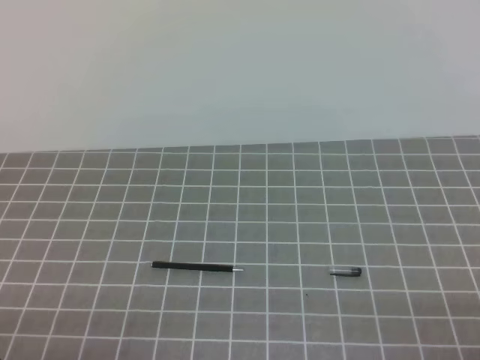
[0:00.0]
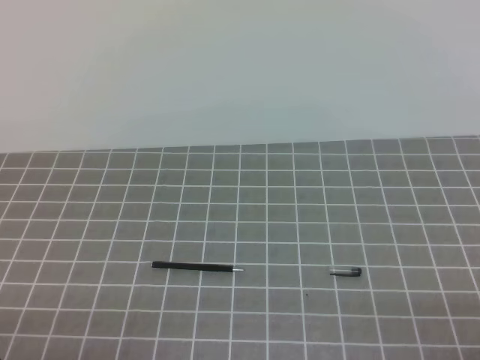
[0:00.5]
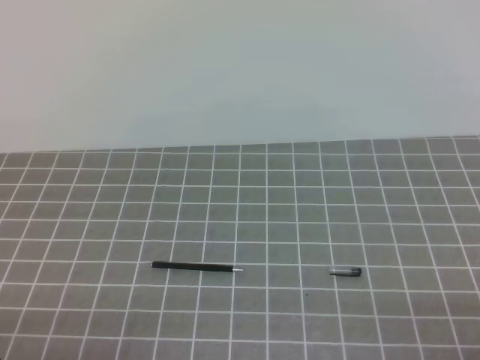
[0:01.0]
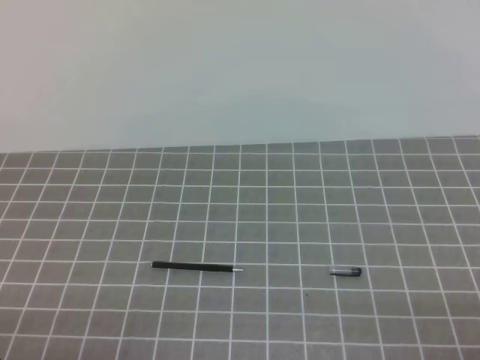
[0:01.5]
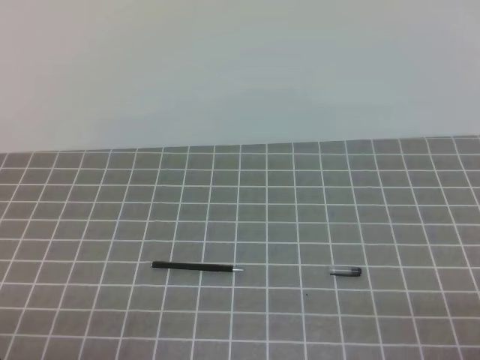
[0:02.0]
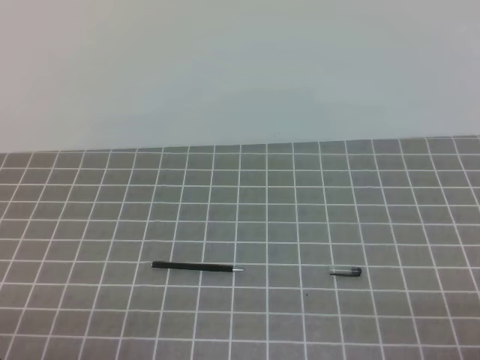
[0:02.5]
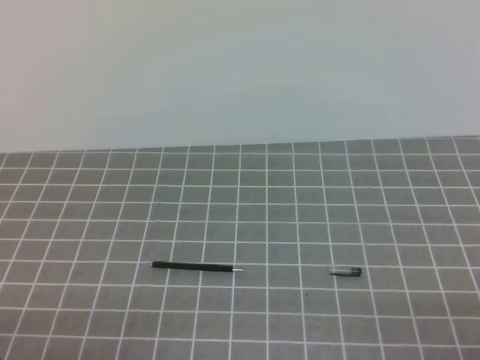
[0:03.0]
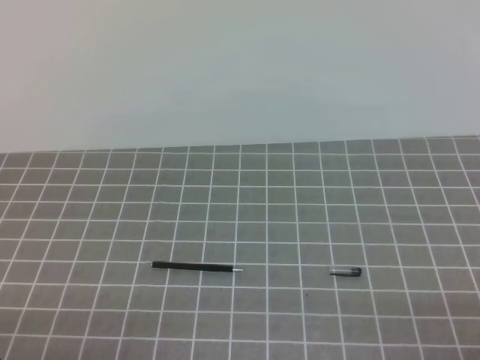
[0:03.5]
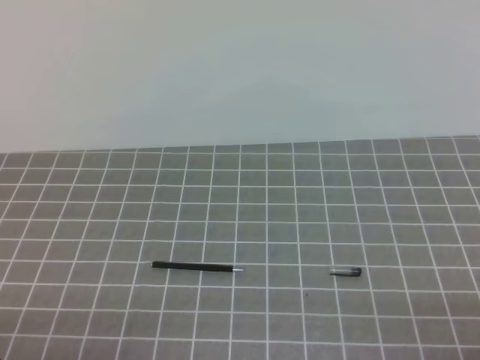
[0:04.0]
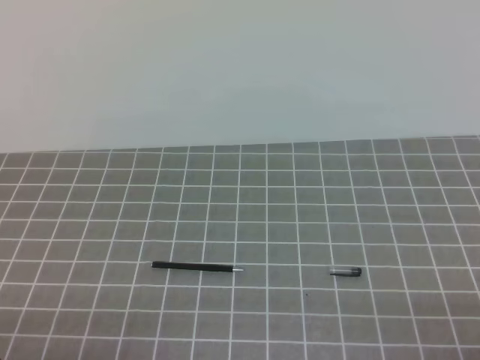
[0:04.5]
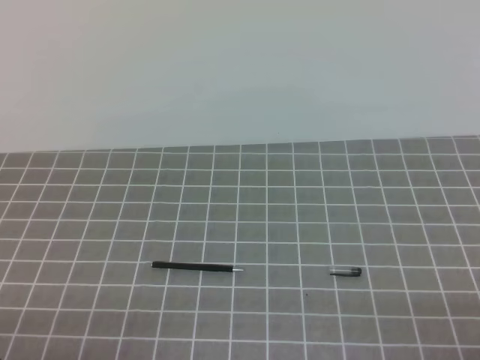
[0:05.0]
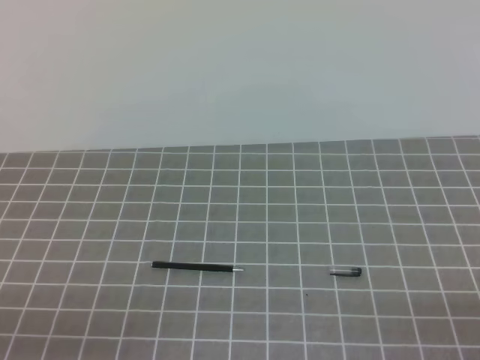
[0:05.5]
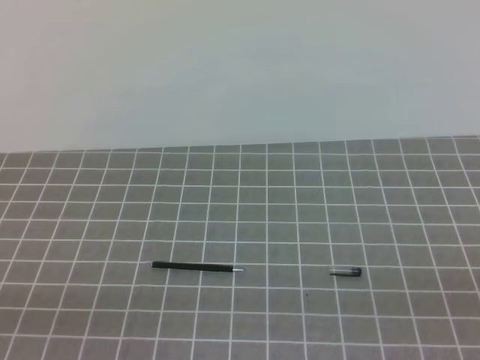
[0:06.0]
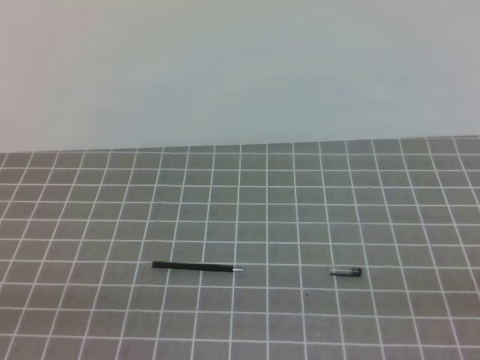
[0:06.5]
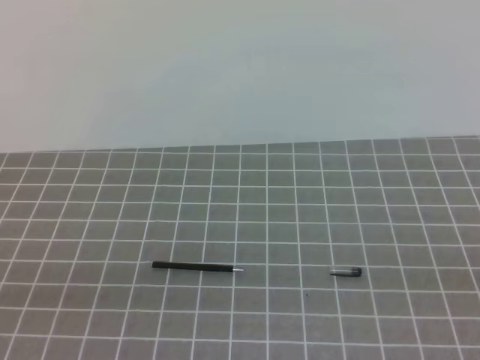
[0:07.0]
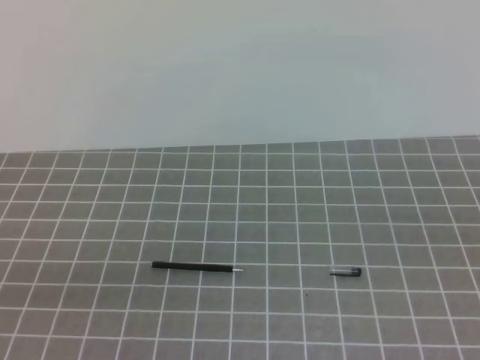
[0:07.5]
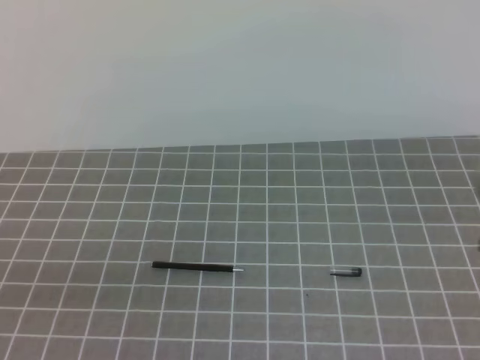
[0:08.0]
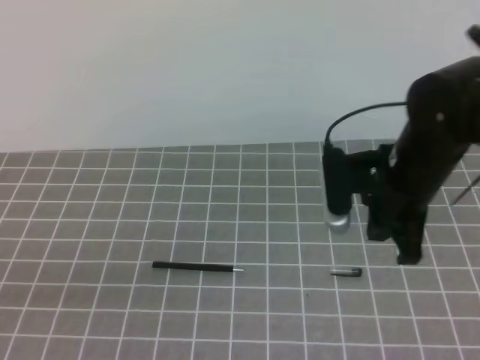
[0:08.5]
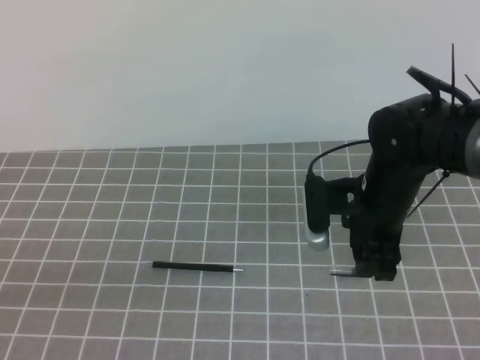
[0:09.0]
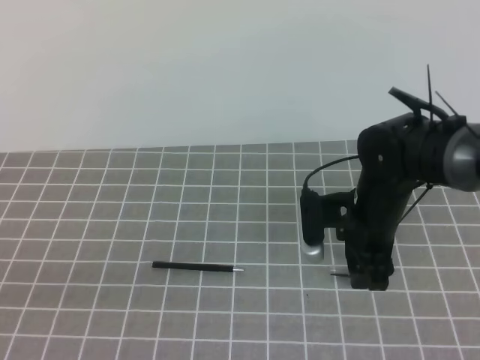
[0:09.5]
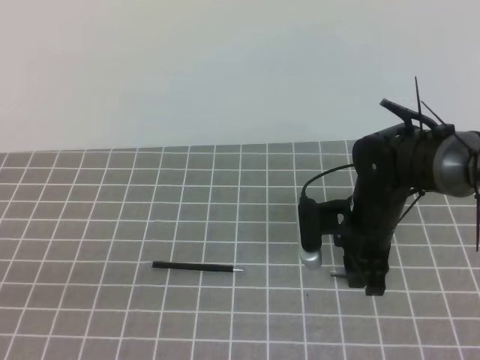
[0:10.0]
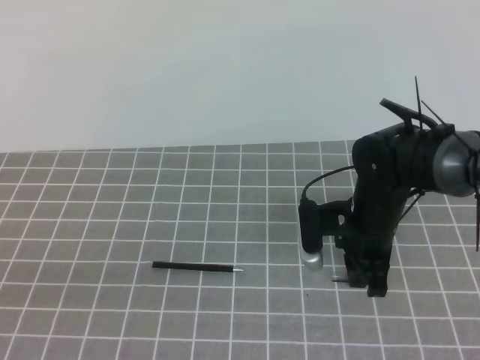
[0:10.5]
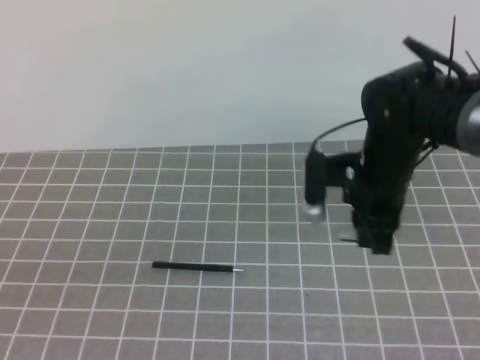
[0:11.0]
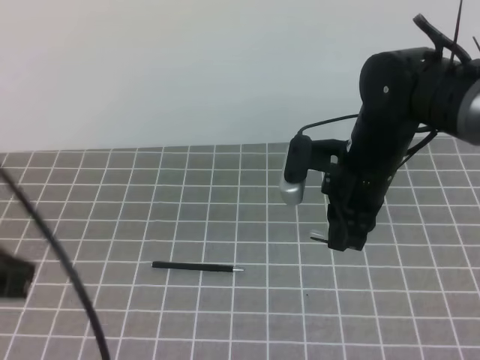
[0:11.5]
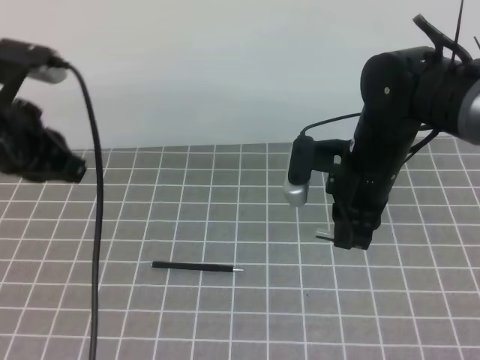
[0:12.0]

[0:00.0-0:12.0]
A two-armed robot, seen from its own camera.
Task of the whole recording: on the grey tablecloth, hold the pen cap in one hand and the pen in the other, then cover the pen cap.
0:00.0 to 0:04.0: Both grippers stay about where they are.
0:08.0 to 0:10.0: The right gripper shifts about 25 cm downward, forward and to the left, and opens up.
0:10.0 to 0:12.0: The left gripper heads forward, covering some 25 cm; the right gripper heads upward, covering approximately 10 cm, and closes up.

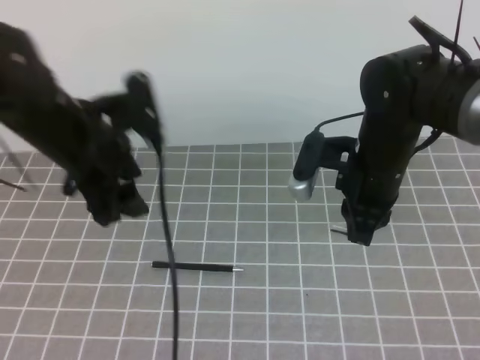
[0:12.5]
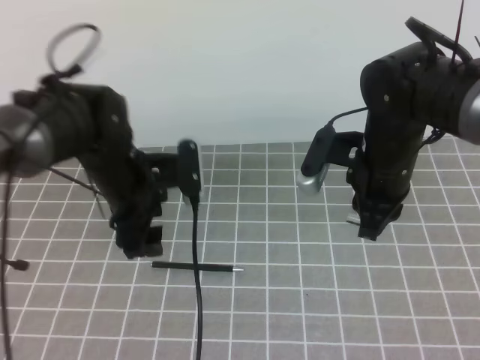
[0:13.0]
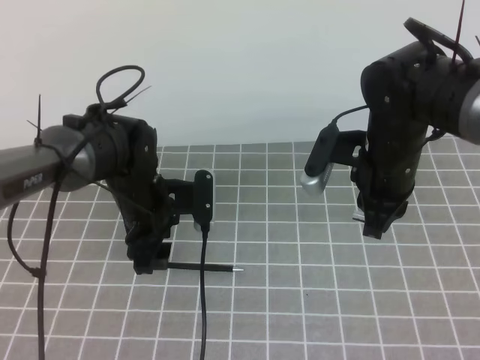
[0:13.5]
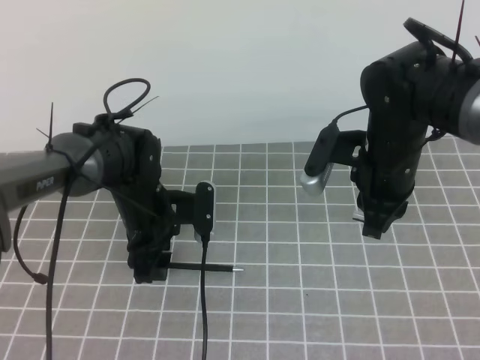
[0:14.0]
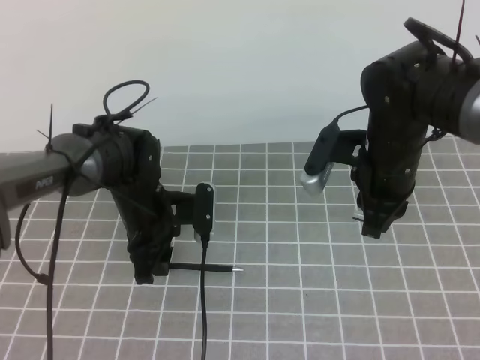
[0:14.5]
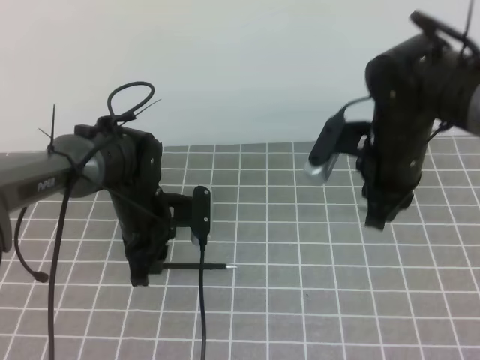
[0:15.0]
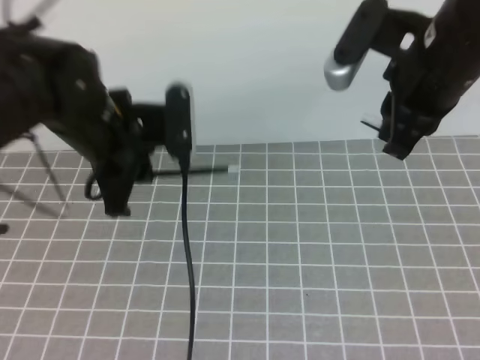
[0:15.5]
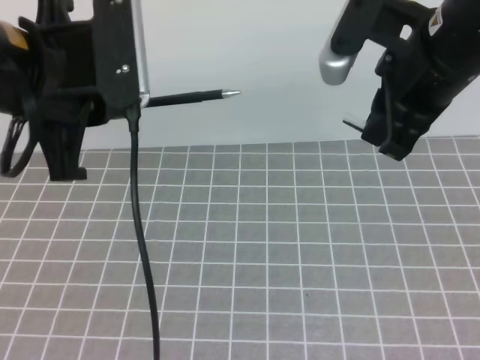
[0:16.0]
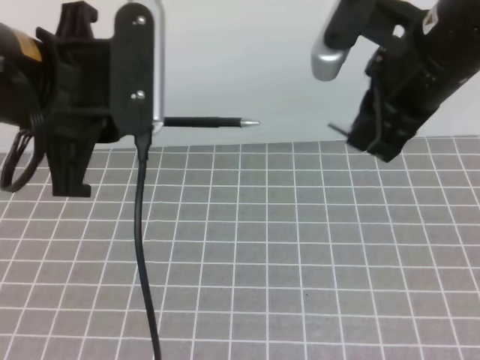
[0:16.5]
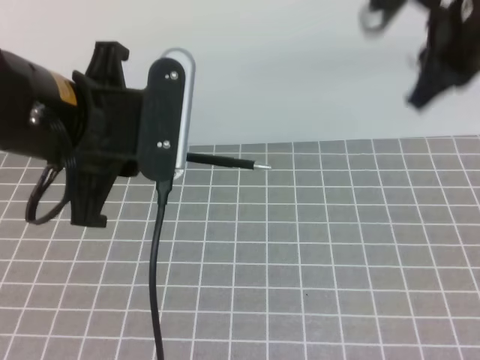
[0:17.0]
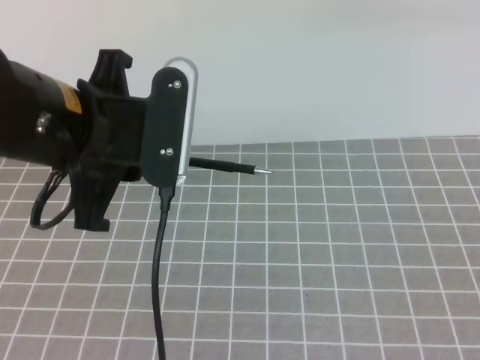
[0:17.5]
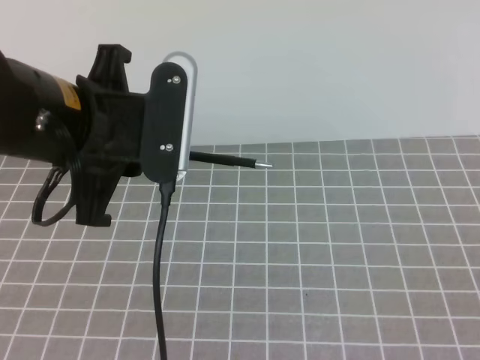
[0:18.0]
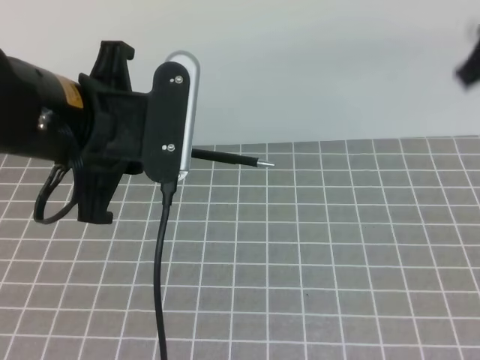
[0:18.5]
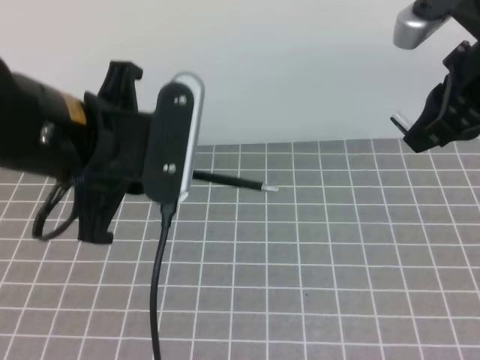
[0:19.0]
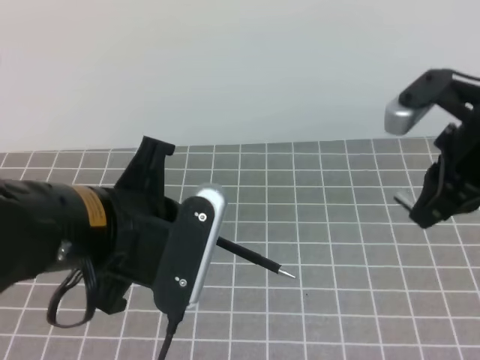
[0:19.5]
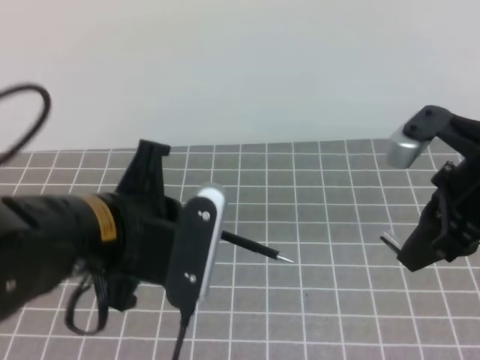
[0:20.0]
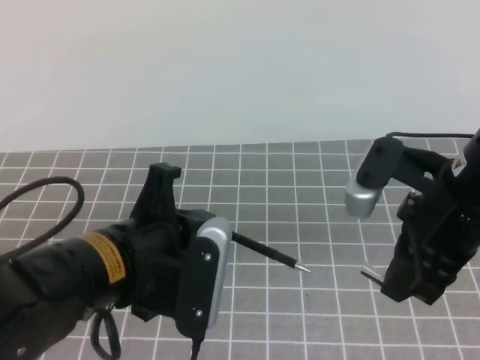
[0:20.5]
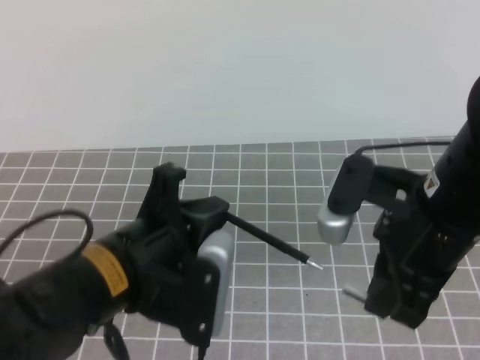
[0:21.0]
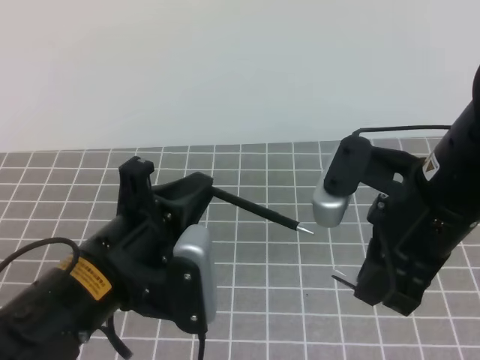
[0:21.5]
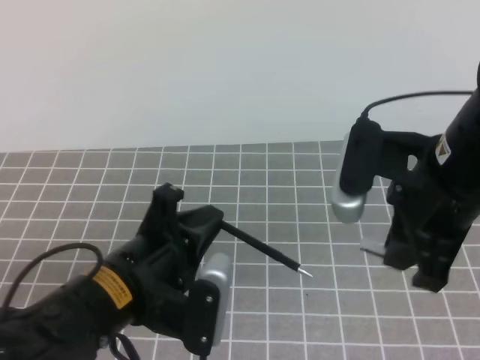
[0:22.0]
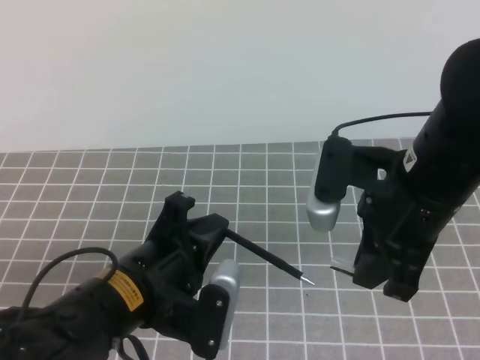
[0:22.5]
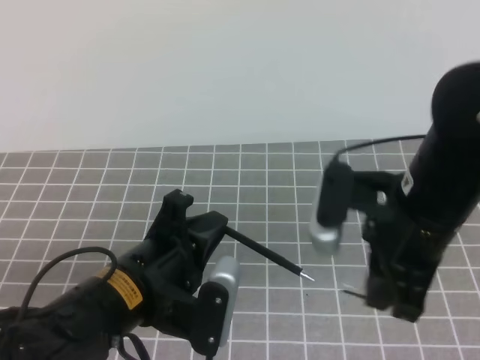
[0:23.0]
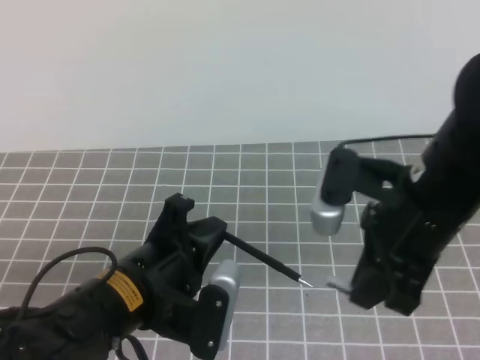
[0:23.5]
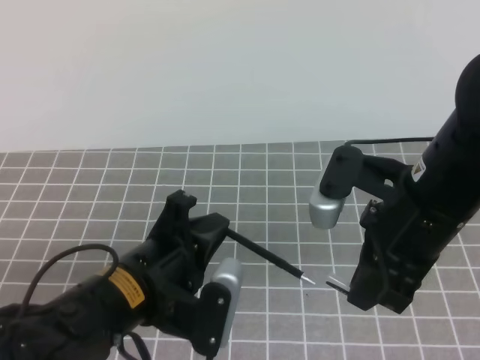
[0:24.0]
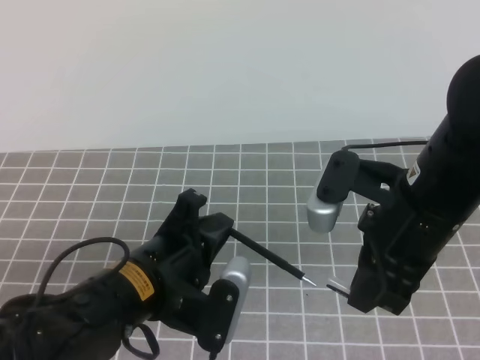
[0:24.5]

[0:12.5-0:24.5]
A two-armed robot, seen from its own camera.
Task of the whole recording: on the grey tablecloth, hold the pen cap in one hand and the pen in the other, then cover the pen cap.
0:12.5 to 0:14.5: The left gripper heads downward, covering approximately 15 cm, and closes up.
0:14.5 to 0:16.5: The right gripper shifts about 15 cm upward. The left gripper goes about 30 cm upward and backward.
0:16.5 to 0:18.5: The right gripper travels to the right by roughly 10 cm, and moves some 15 cm upward and comes back.
0:18.5 to 0:20.5: The right gripper travels downward, backward and to the left by roughly 15 cm, while the left gripper shifts approximately 10 cm downward.
0:20.5 to 0:22.5: The left gripper is displaced downward by about 5 cm.
0:22.5 to 0:24.5: The grippers make only small movements.

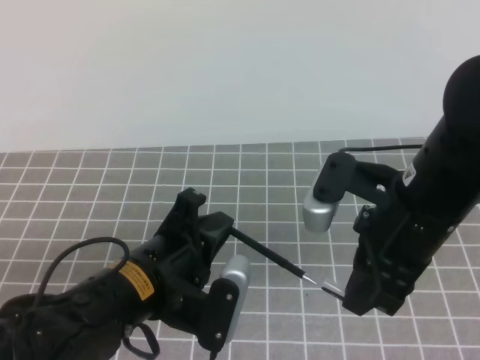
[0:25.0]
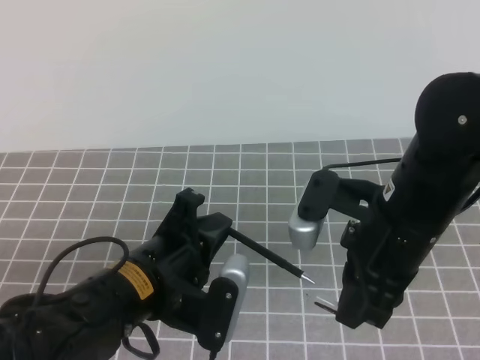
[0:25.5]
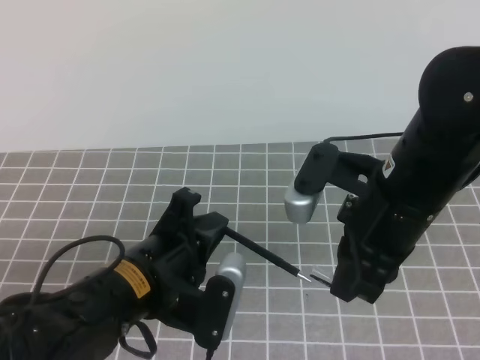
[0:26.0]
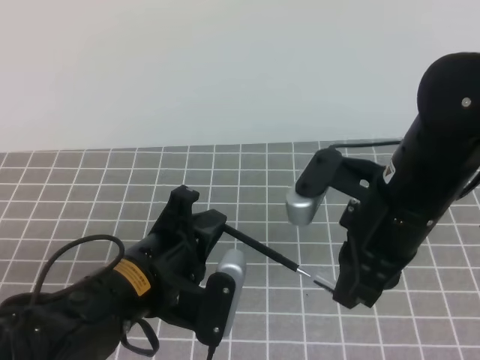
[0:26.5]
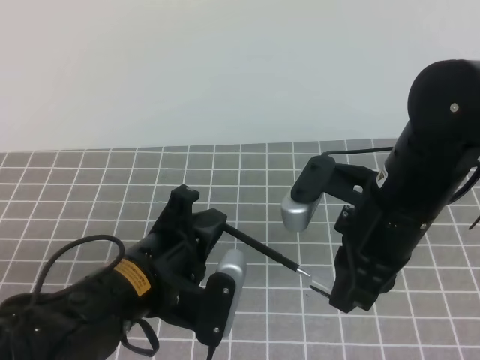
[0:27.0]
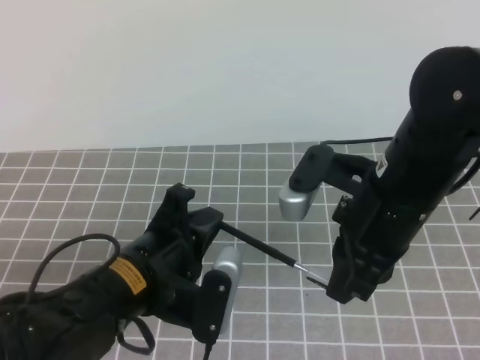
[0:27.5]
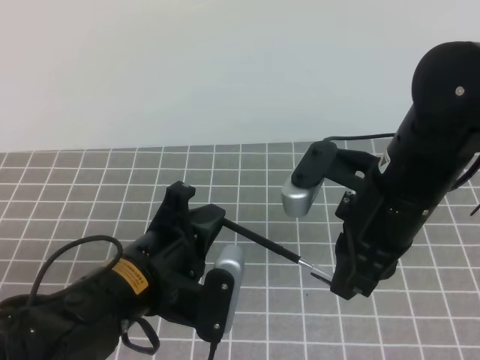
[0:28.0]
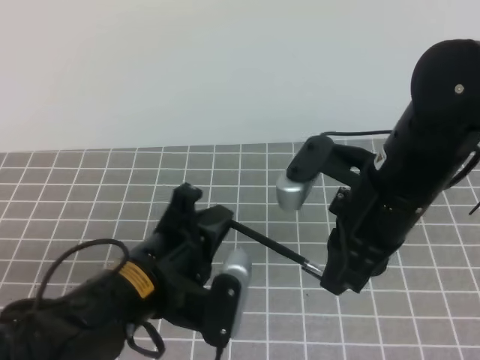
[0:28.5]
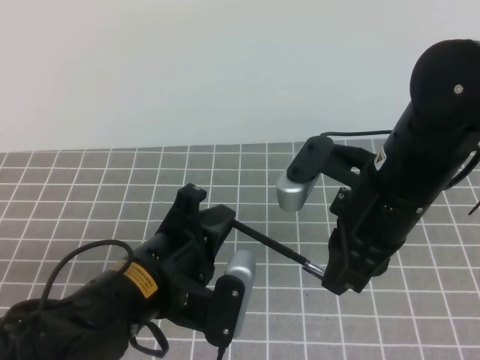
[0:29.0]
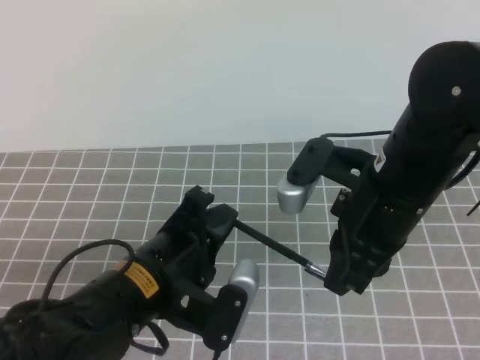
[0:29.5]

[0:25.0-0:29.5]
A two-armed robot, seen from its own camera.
Task of the whole recording: on the grey tablecloth, hold the pen cap in one hand and the pen in the other, then cover the pen cap.
0:25.0 to 0:29.5: The grippers move only a little.
